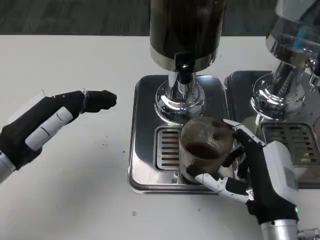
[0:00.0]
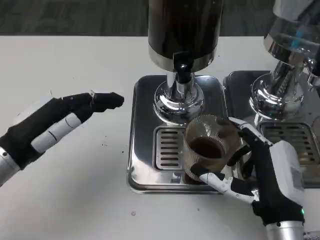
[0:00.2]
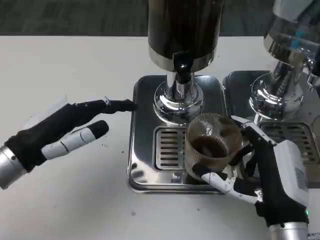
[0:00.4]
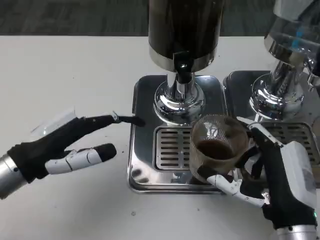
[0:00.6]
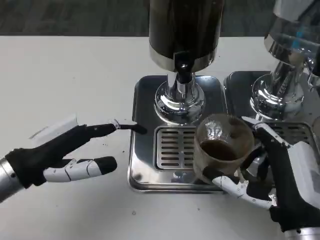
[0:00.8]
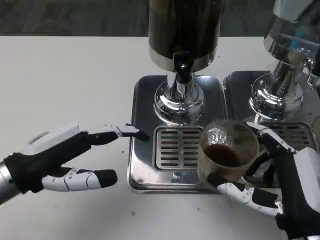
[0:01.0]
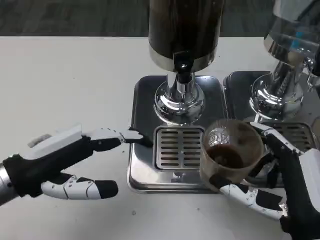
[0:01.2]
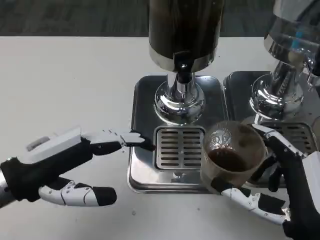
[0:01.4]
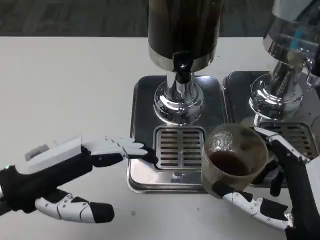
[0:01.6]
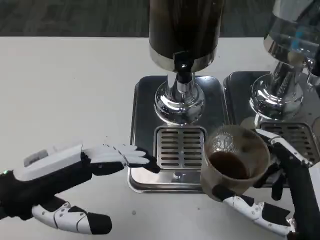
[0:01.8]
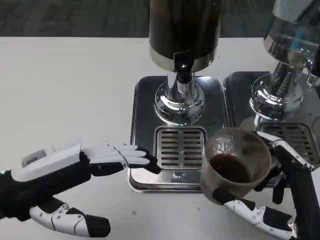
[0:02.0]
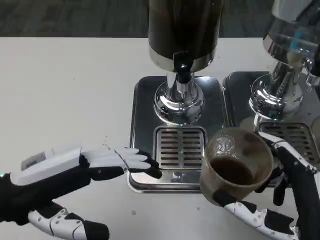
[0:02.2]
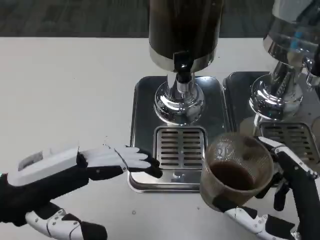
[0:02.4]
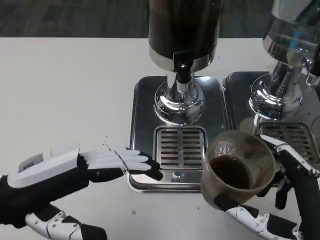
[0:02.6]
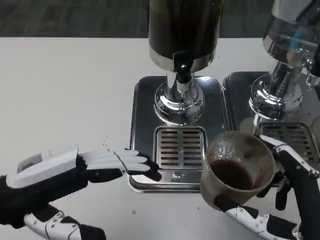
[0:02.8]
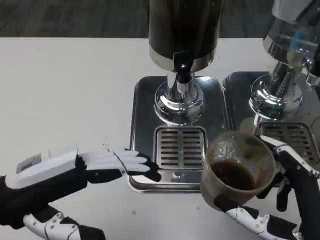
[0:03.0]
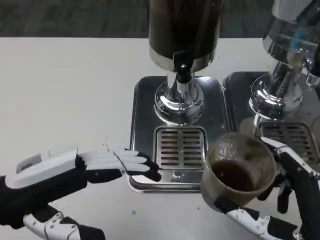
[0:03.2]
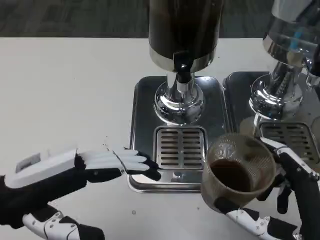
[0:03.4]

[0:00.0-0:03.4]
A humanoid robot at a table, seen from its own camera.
Task of the whole recording: Grasp the cup under the faucet to collect the drink, then remove the cup.
0.0 to 1.6 s: The left hand shifts by approximately 5 cm; the right hand heads backward, covering approximately 5 cm.

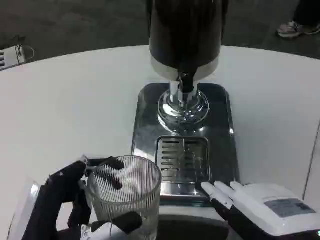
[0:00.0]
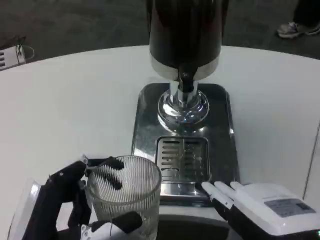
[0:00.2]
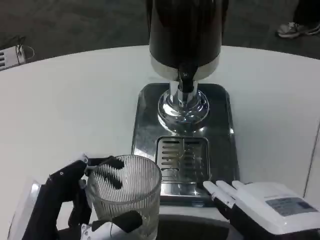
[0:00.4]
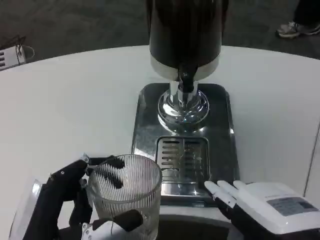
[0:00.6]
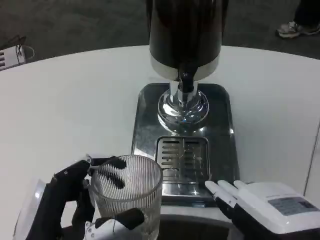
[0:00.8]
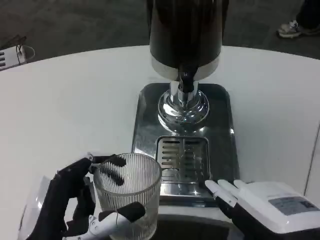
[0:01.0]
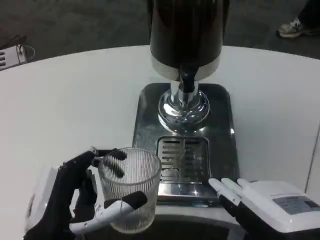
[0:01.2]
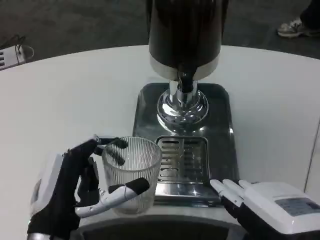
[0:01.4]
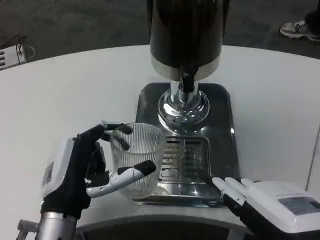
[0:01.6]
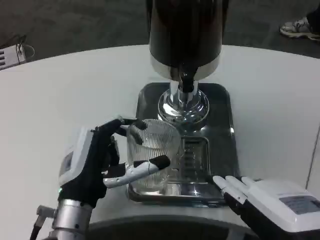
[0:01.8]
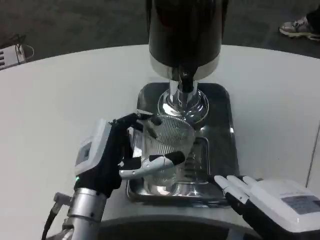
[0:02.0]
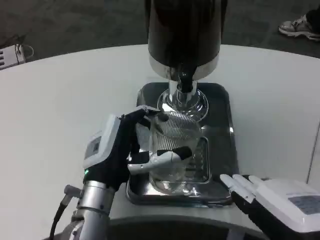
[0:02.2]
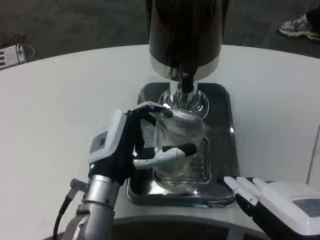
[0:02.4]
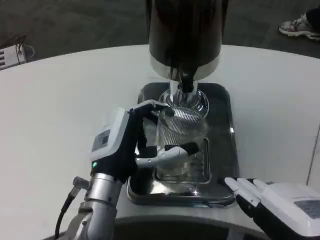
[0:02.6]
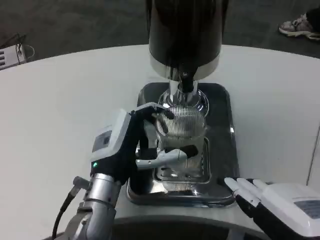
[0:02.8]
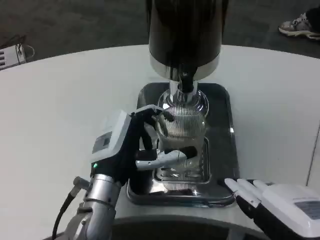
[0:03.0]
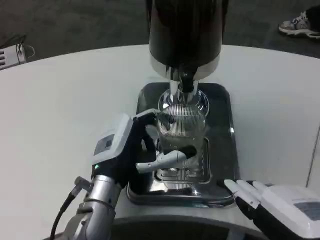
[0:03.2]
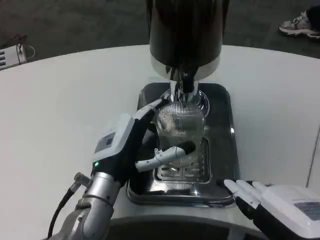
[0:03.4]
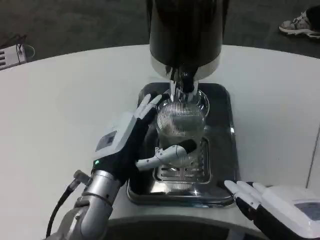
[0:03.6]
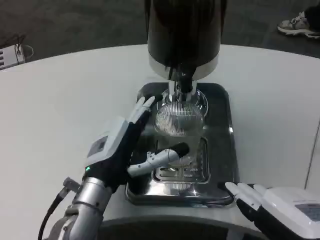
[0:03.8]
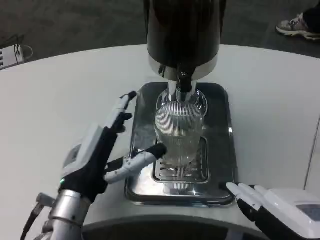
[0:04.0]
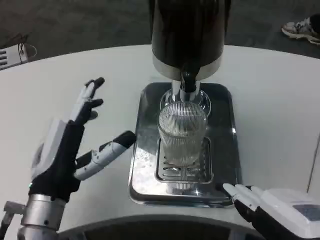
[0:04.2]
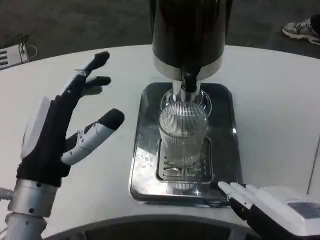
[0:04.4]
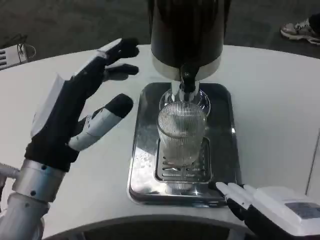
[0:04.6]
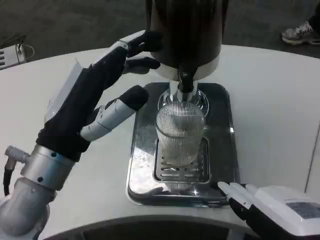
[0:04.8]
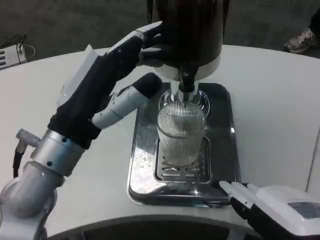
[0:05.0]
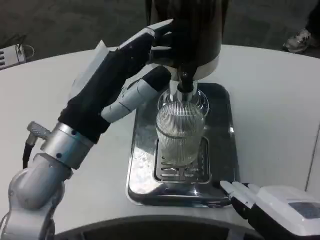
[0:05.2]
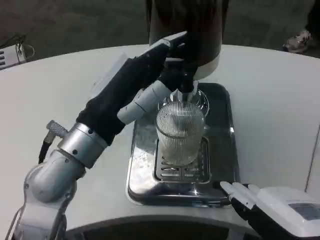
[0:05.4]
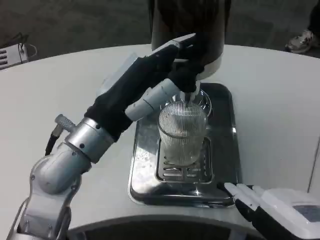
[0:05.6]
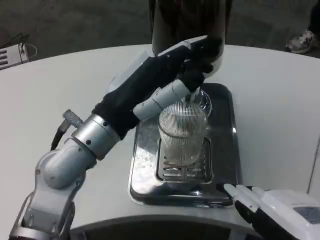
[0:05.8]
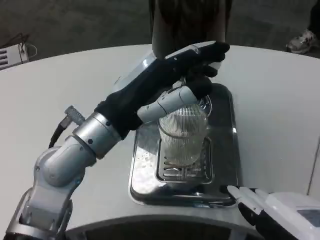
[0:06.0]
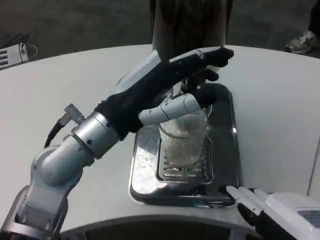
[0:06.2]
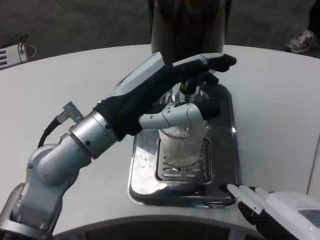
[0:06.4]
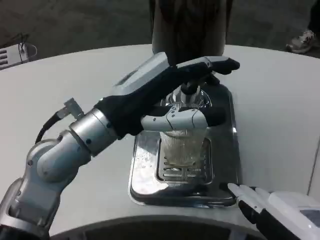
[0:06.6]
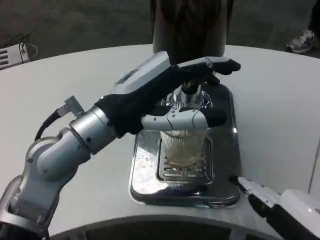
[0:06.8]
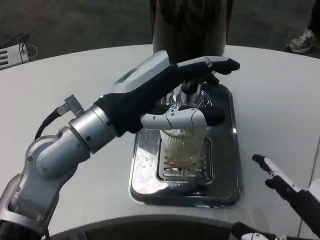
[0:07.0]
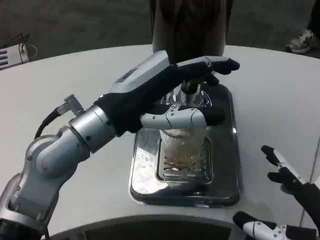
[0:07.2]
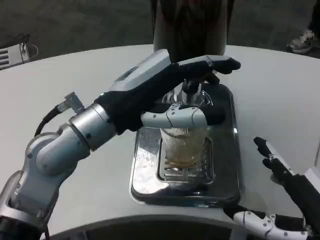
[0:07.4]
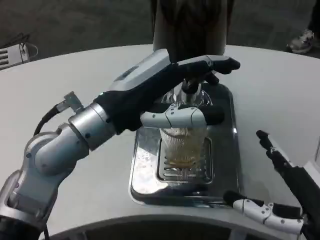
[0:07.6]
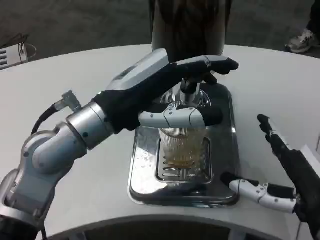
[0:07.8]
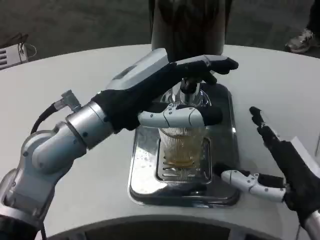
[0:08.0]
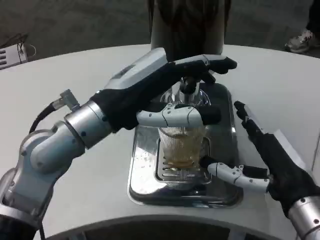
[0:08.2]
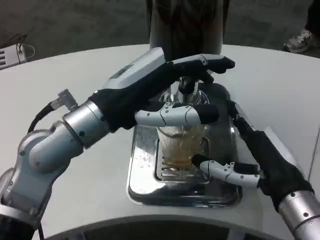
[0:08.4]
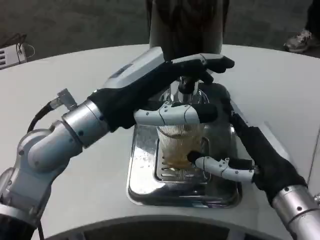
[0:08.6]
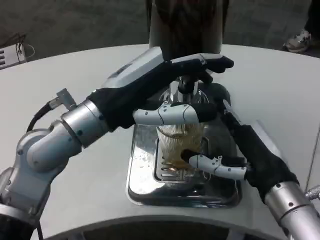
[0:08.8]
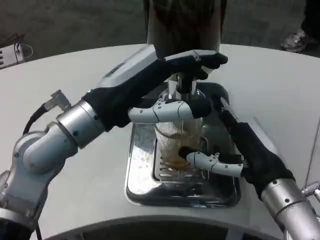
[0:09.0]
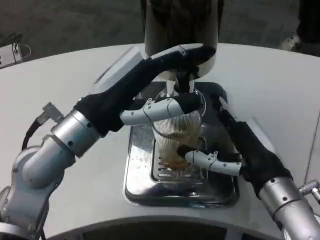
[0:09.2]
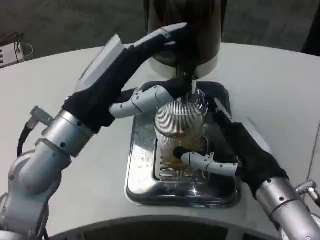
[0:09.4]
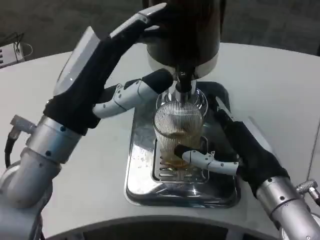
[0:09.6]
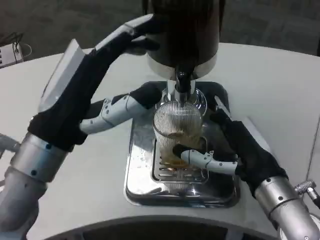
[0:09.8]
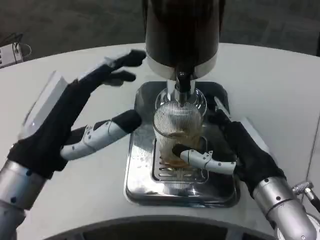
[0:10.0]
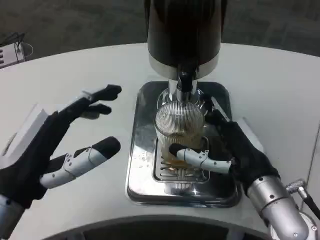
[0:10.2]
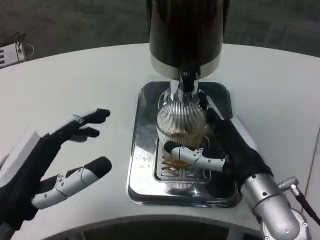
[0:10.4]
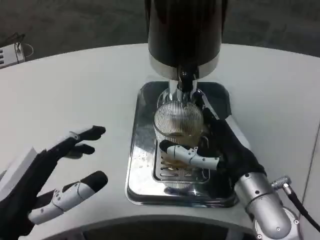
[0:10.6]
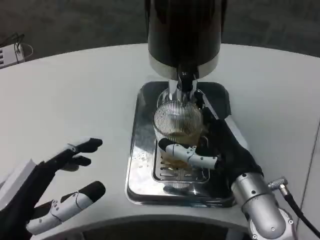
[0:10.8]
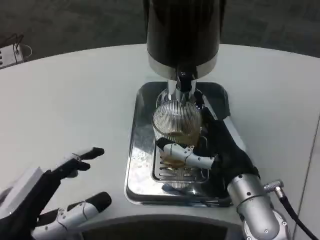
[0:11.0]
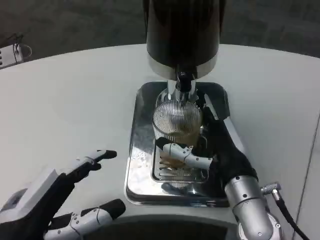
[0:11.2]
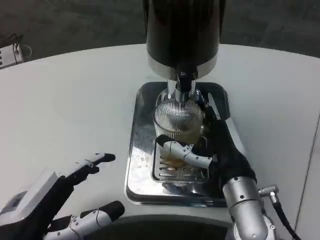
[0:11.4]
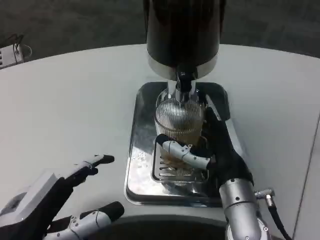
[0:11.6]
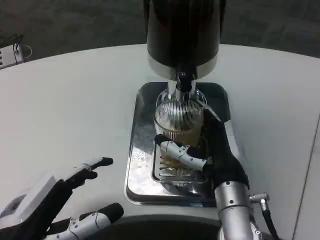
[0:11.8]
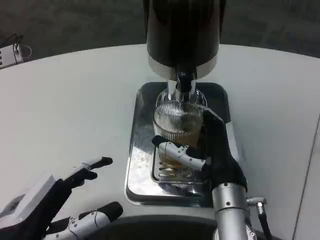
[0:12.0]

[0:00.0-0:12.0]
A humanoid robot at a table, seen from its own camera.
Task of the whole recording: Grasp the cup under the faucet to collect the drink, then remove the cup.
0.0 to 1.6 s: The left hand travels forward by about 10 cm.
1.6 to 3.0 s: The left hand shifts approximately 5 cm forward.
3.0 to 4.4 s: The left hand travels backward and to the left by about 10 cm.
4.4 to 6.0 s: The left hand moves upward, about 5 cm.
6.0 to 7.6 s: The right hand shifts about 5 cm forward.
7.6 to 9.0 s: The right hand goes about 10 cm forward.
9.0 to 10.4 s: The left hand travels backward, downward and to the left by roughly 15 cm.
10.4 to 12.0 s: The right hand travels to the left by roughly 5 cm.

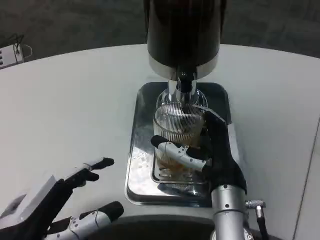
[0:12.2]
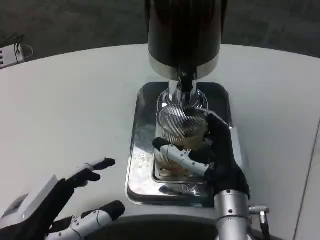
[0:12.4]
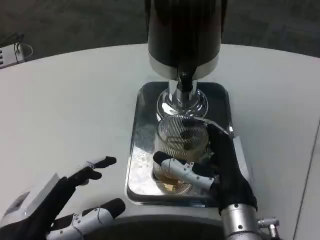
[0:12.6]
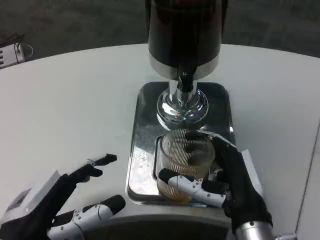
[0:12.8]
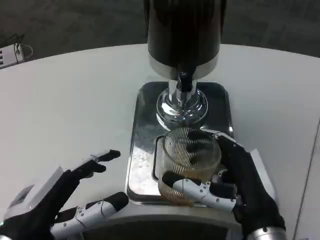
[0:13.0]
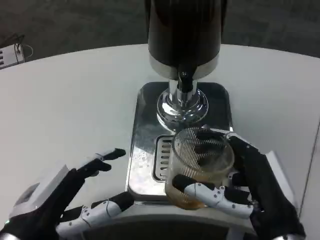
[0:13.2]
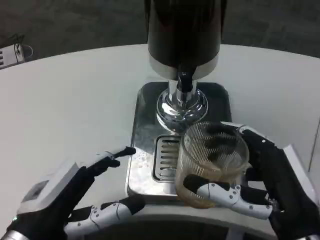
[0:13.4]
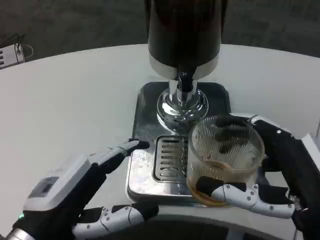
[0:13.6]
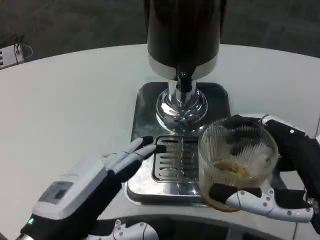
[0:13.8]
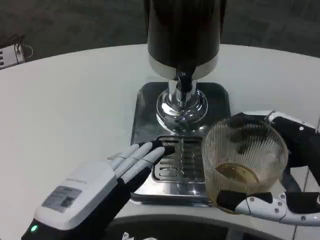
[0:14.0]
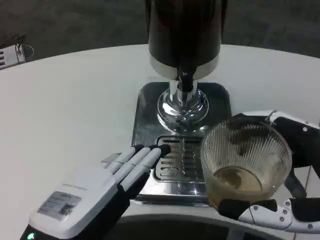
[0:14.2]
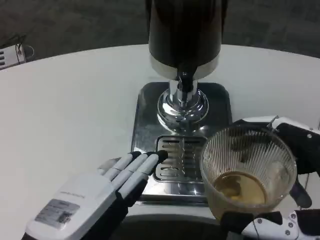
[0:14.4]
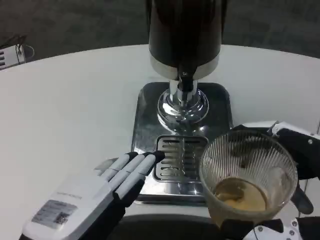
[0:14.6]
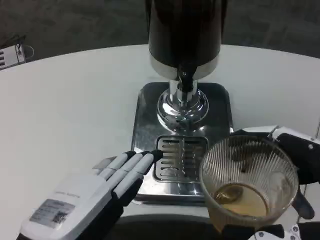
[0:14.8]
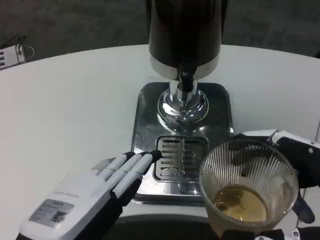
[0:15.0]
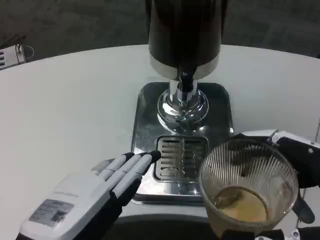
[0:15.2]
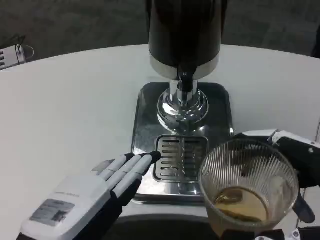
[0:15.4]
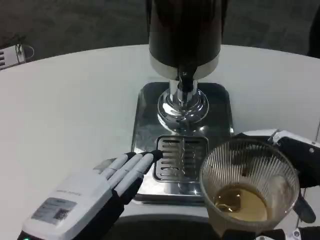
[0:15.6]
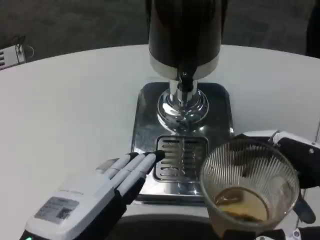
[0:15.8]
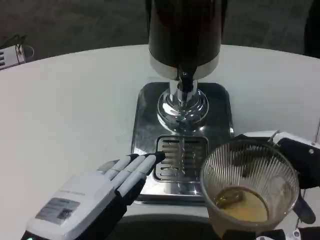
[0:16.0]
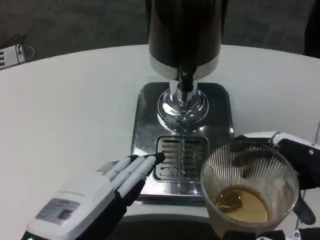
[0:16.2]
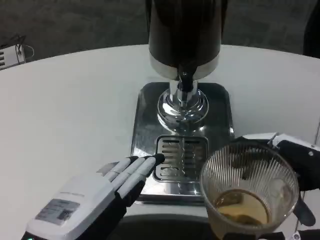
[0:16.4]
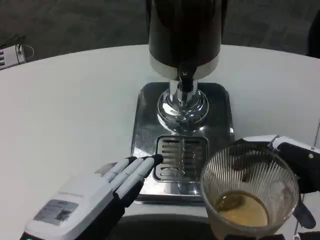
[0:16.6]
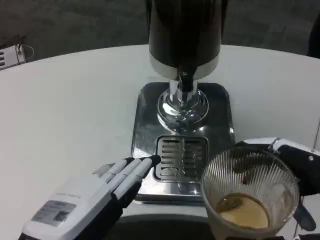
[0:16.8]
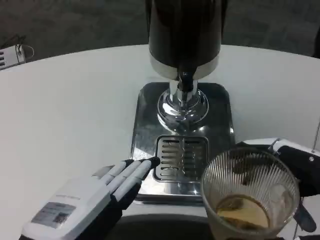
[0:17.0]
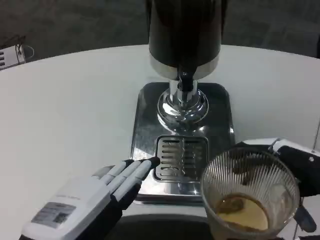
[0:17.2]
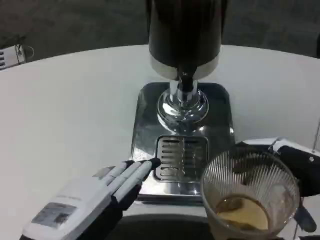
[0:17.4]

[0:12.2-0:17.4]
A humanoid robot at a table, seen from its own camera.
Task of the whole recording: Grasp the cup under the faucet to collect the drink, then remove the cup.
12.2 to 14.0 s: The right hand is displaced backward, to the right and upward by about 20 cm; the left hand moves approximately 5 cm.
15.6 to 17.4 s: Both hands stay put.

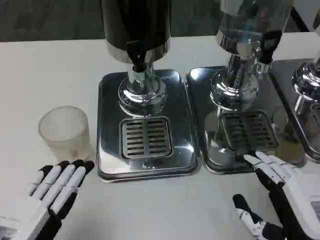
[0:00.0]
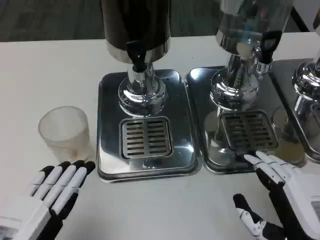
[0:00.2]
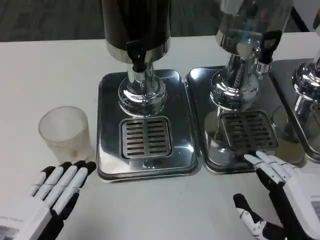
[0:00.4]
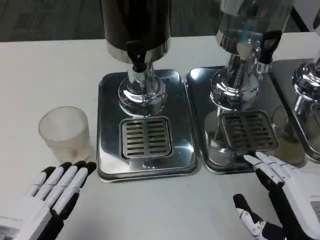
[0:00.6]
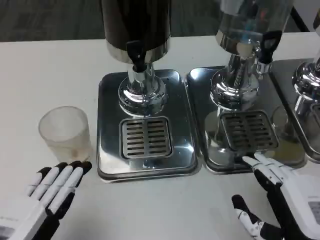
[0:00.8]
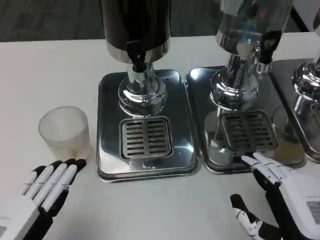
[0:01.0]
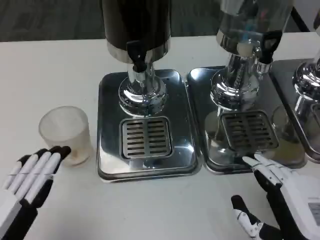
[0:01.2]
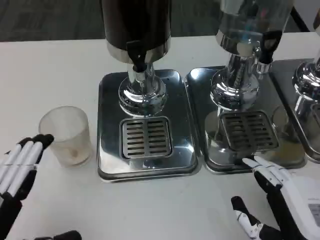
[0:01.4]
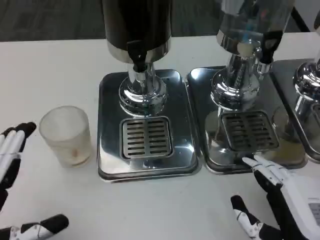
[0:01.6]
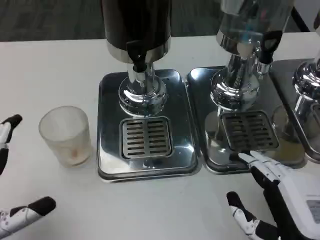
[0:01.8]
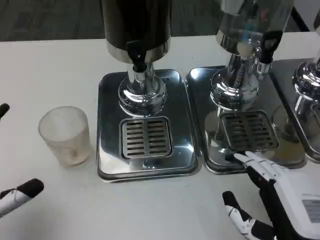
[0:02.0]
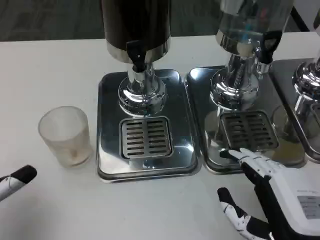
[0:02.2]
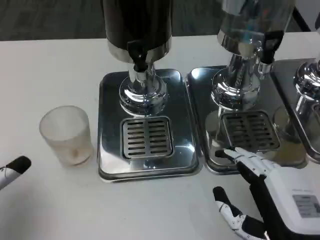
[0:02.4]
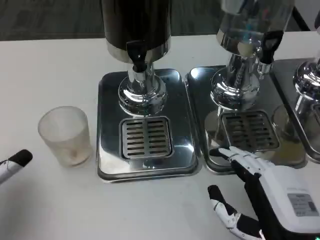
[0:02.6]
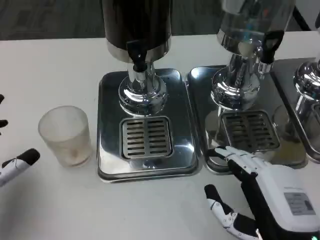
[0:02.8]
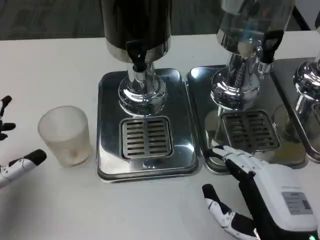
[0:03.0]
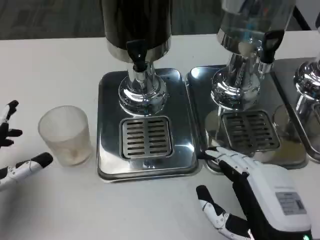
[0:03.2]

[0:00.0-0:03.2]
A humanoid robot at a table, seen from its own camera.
Task of the whole recording: Grasp the cup under the faucet to collect the drink, then remove the cup.
0.0 to 1.6 s: The hands make only small movements.
1.6 to 3.2 s: The left hand is displaced forward by approximately 10 cm.
